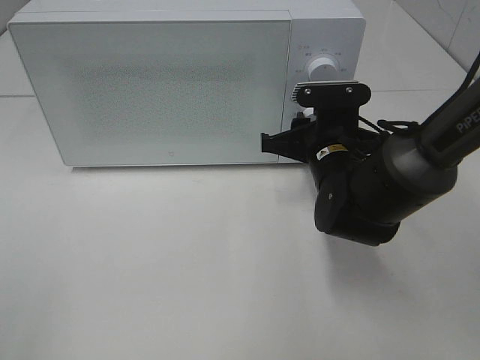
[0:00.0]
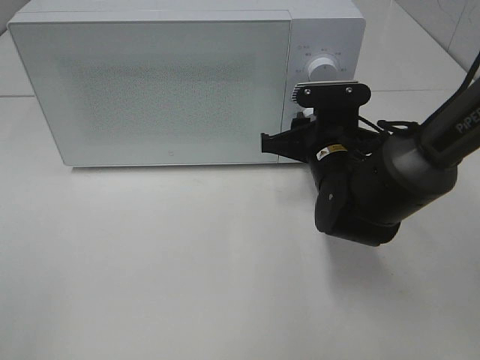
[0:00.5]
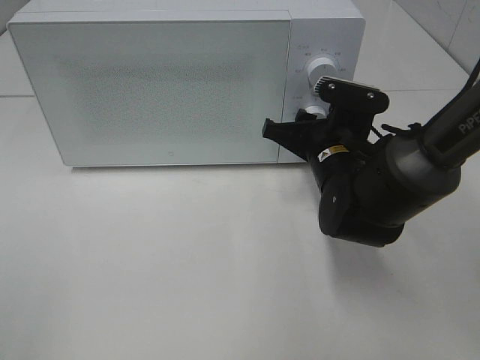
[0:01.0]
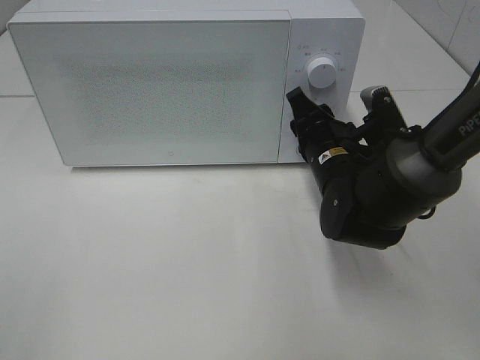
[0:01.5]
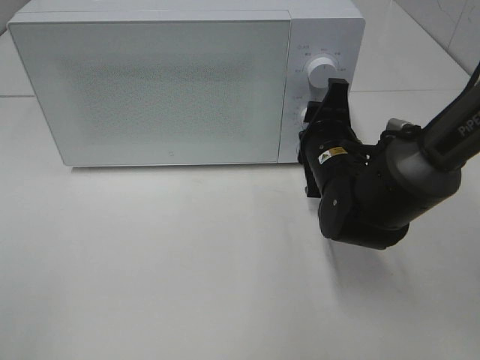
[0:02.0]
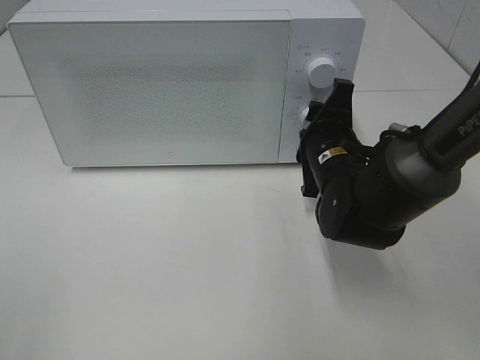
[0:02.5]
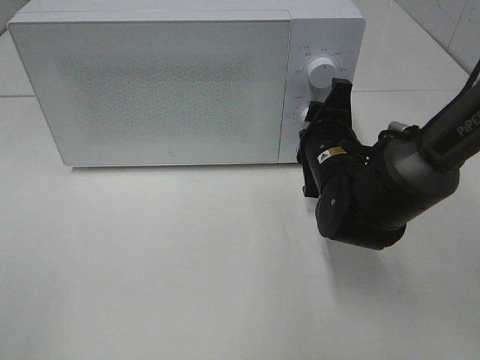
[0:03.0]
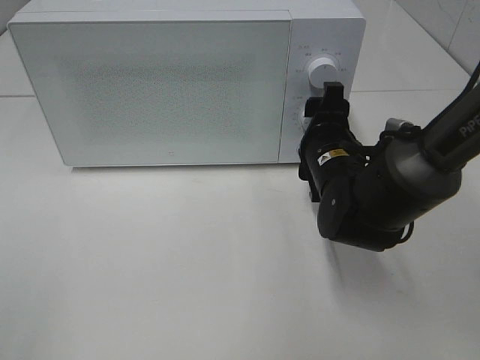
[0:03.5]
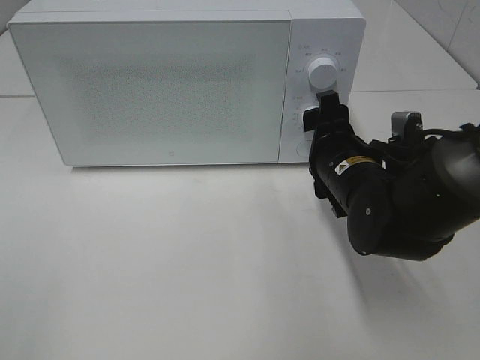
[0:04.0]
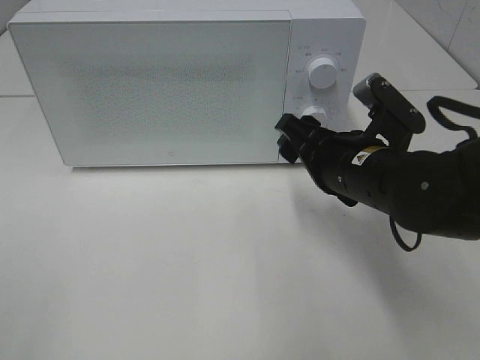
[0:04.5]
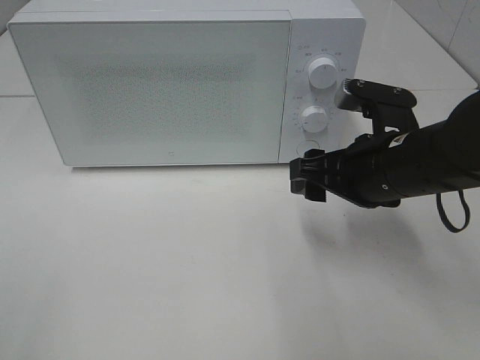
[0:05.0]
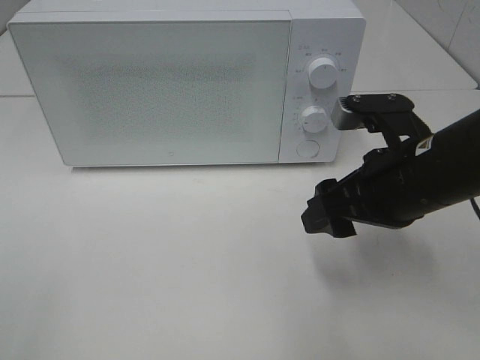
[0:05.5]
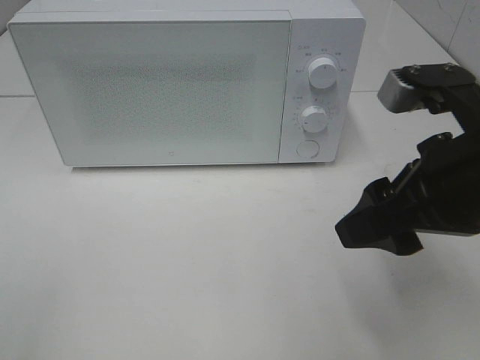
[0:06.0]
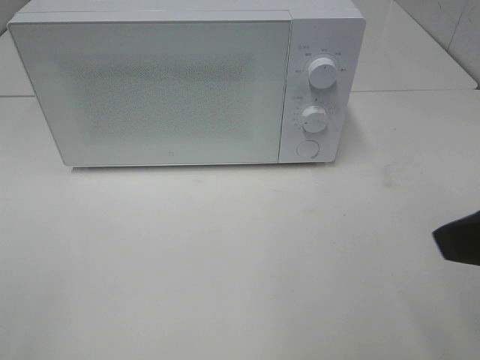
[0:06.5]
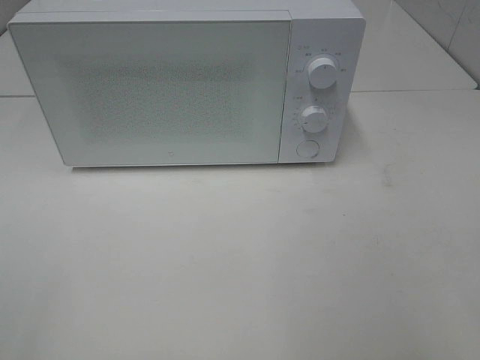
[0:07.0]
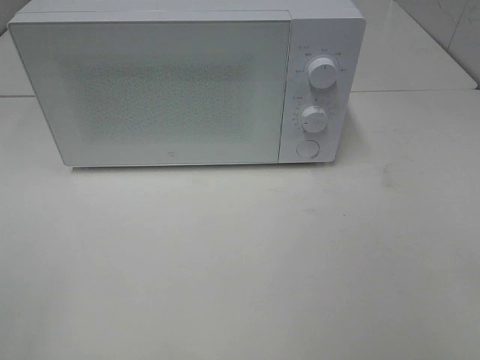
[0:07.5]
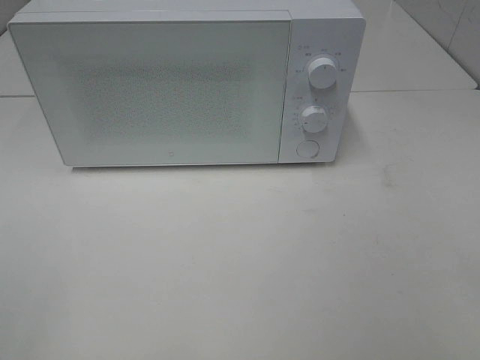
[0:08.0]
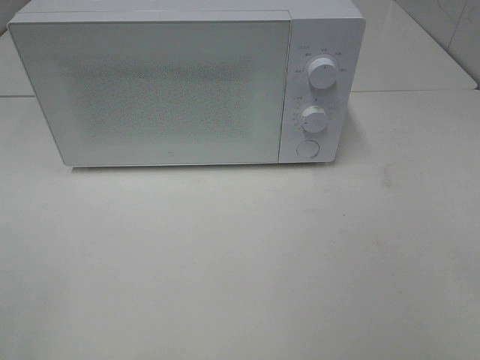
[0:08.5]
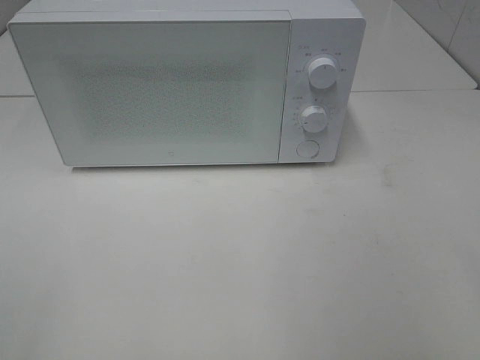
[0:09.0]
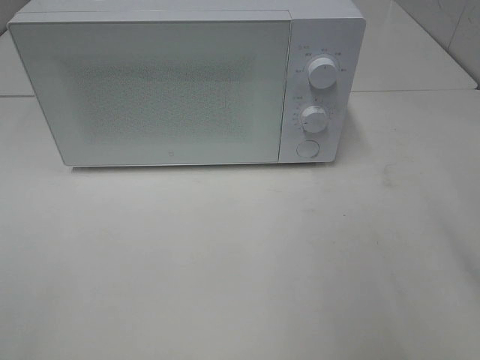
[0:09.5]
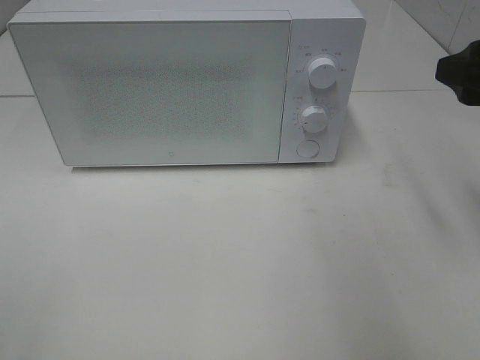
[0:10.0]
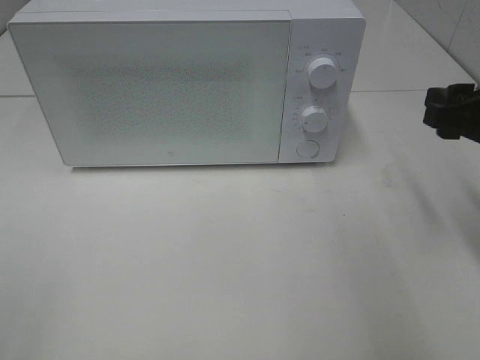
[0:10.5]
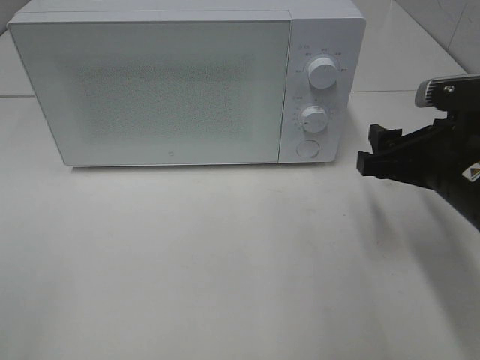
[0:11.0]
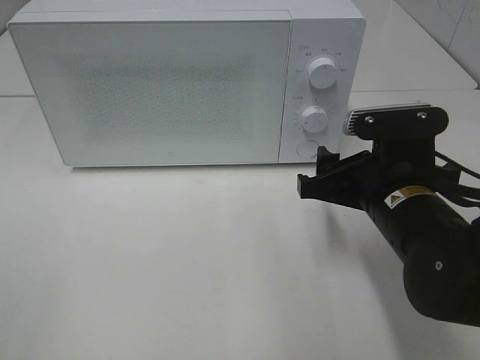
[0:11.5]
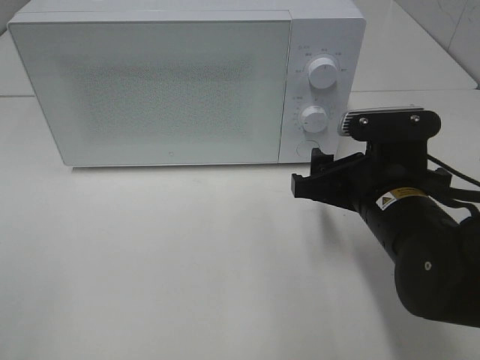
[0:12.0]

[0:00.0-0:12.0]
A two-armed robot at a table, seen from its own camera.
Task of the whole recording: Heat the burger.
Step, 0.0 to 3.0 s: Right hand: twist timer button.
2.0 to 4.0 s: The right gripper opens.
4.0 to 6.0 s: The right gripper shifts some 15 cm upward and backward.
6.0 to 8.0 s: The right gripper heads backward and to the right, covering approximately 20 cm.
8.0 to 10.0 s: The right gripper moves forward, about 20 cm.
10.0 to 12.0 s: The right gripper heads downward and to the left, covering about 20 cm.

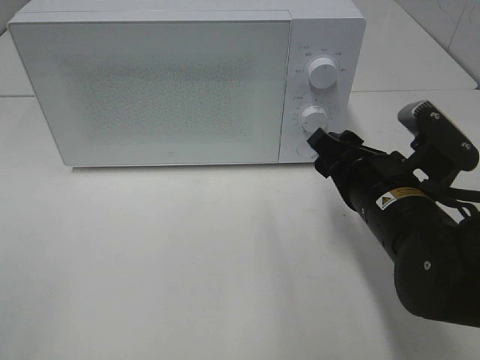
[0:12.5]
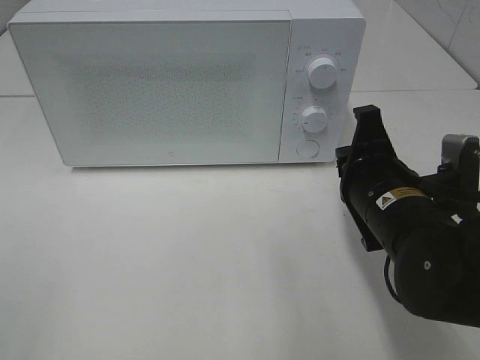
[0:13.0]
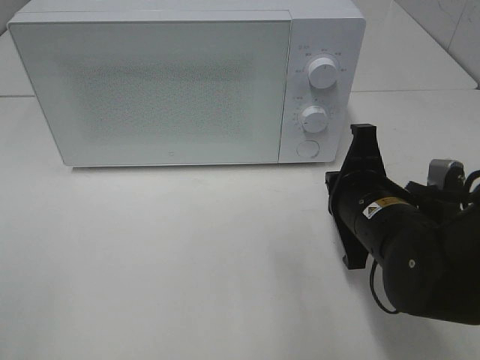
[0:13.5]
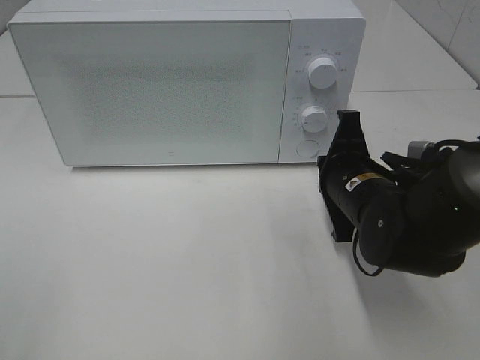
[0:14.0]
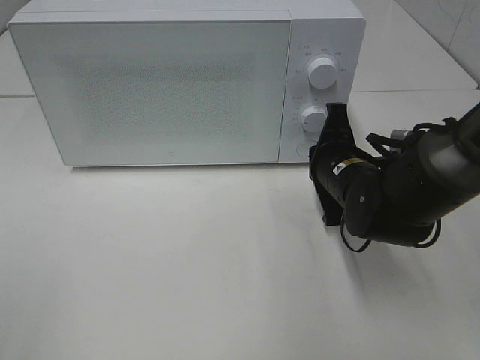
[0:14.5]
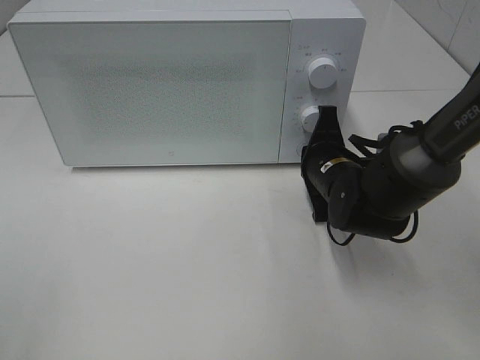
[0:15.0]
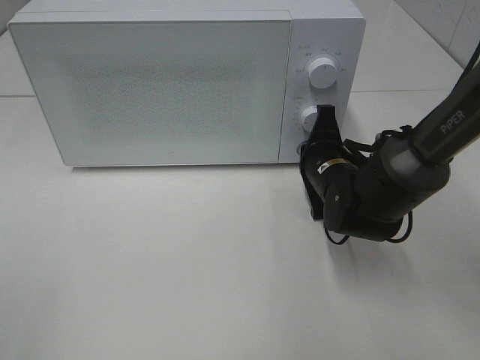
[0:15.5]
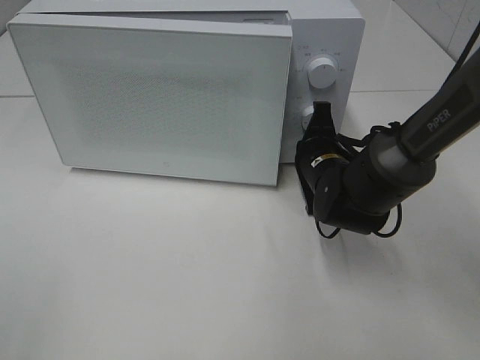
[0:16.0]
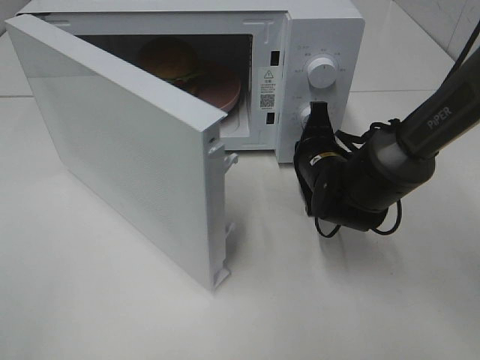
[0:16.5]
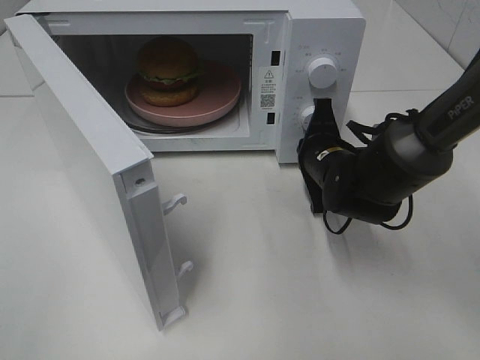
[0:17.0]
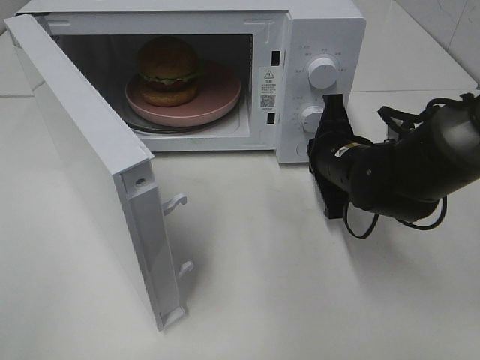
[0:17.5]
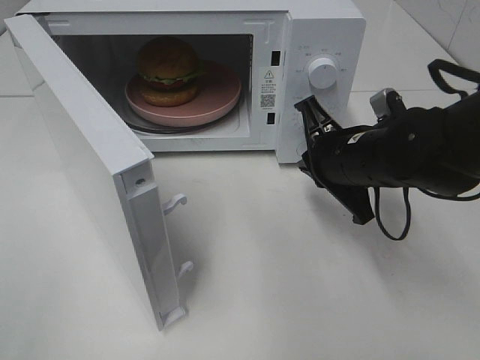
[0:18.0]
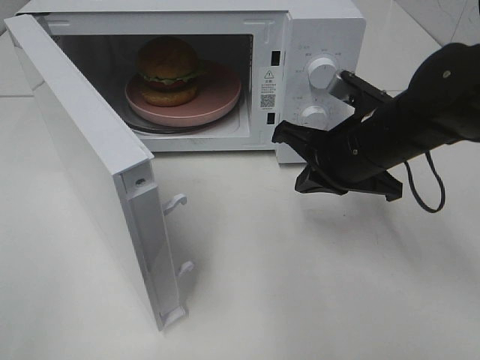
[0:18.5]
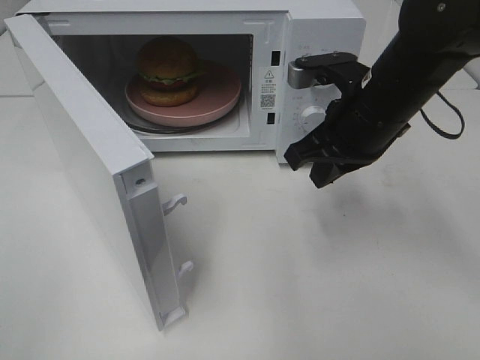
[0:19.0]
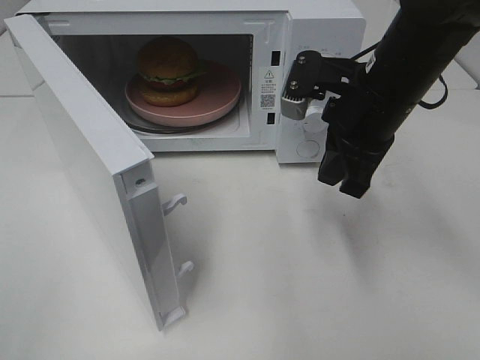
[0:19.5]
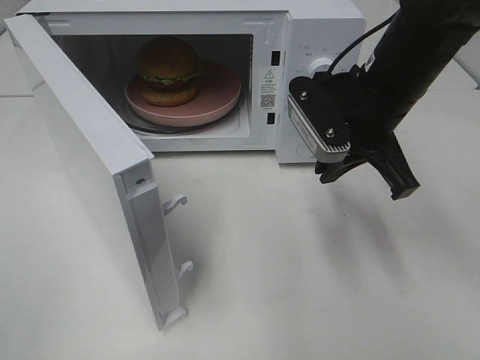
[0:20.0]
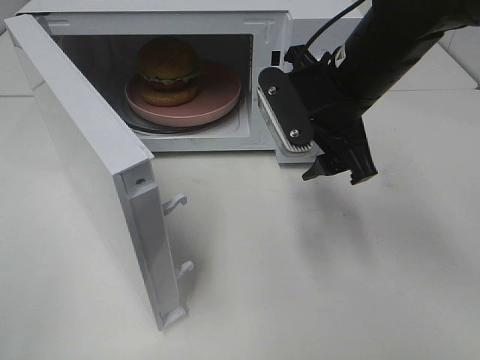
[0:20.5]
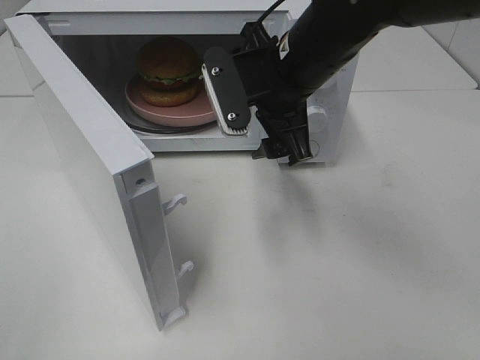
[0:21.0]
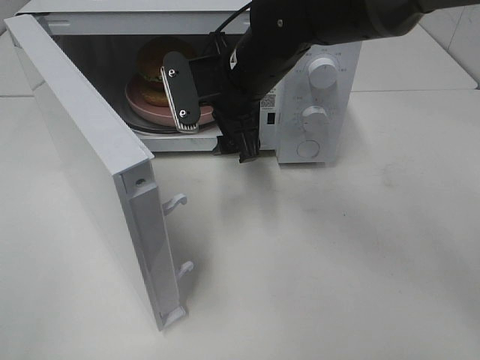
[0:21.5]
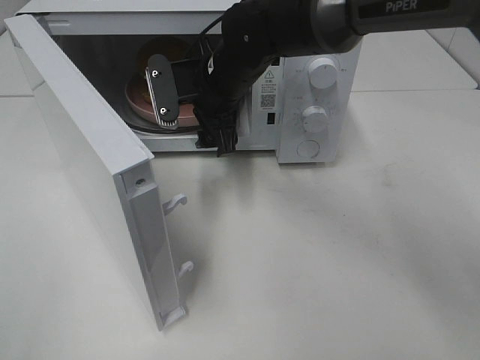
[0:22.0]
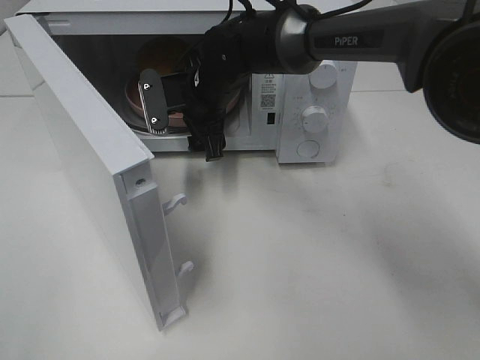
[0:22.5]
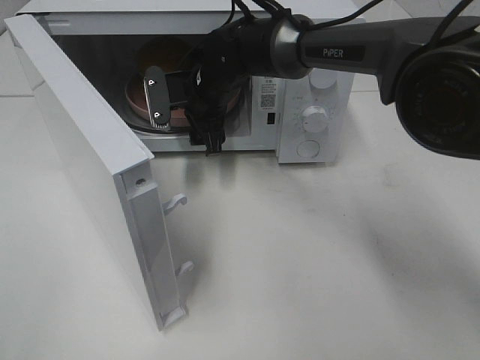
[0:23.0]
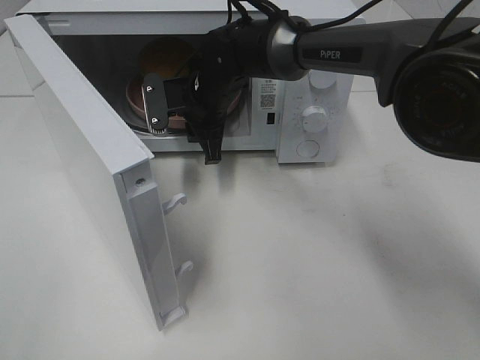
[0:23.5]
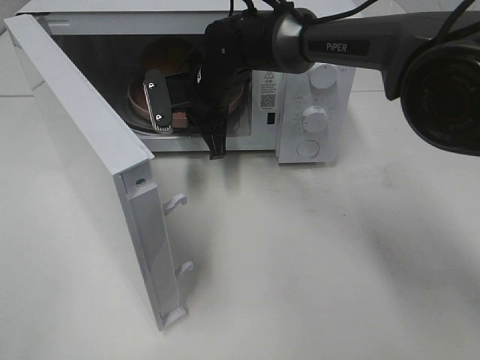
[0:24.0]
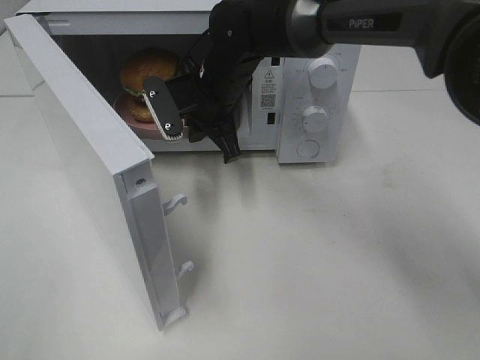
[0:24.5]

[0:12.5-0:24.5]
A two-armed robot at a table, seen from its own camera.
Task of the whole recording: Heat the burger.
Step, 12.5 to 17.5 s: Right hand: press the switch.
Step, 18.0 to 23.5 s: Right hand: grab the plate with the hamburger.
12.5 to 14.5 s: The right gripper moves forward, approximately 10 cm, and closes.
16.5 to 18.5 s: The right gripper moves upward and backward, approximately 10 cm.
18.5 to 20.5 s: The right gripper shifts roughly 5 cm upward, and opens its fingers.
20.5 to 22.5 s: The right gripper is displaced to the left, forward and downward by some 20 cm.
22.5 to 24.5 s: The right gripper closes.

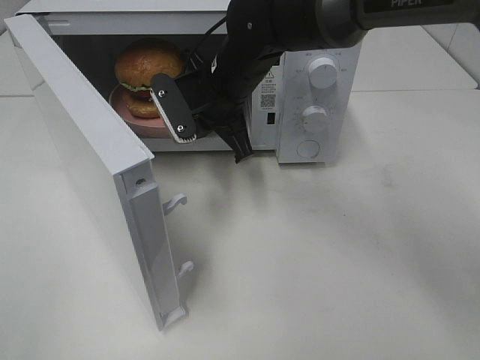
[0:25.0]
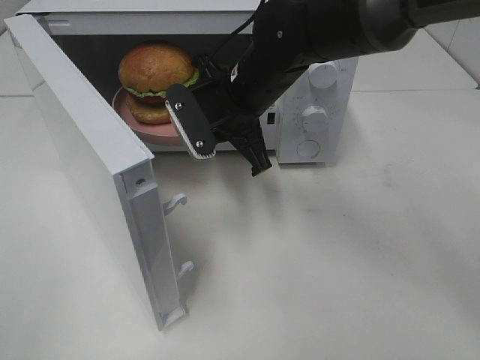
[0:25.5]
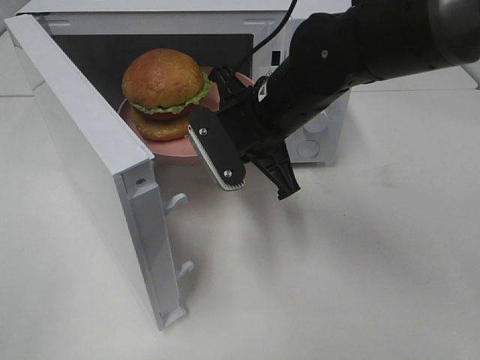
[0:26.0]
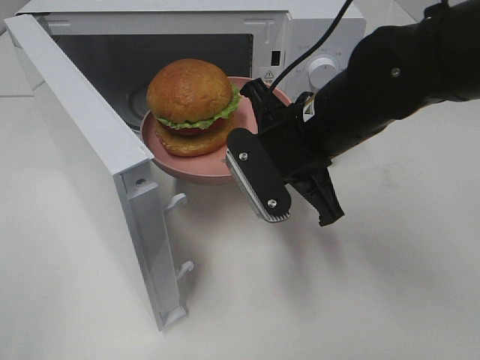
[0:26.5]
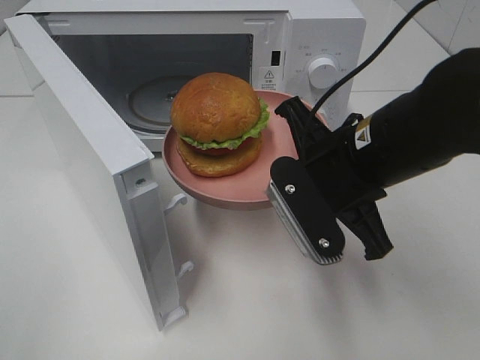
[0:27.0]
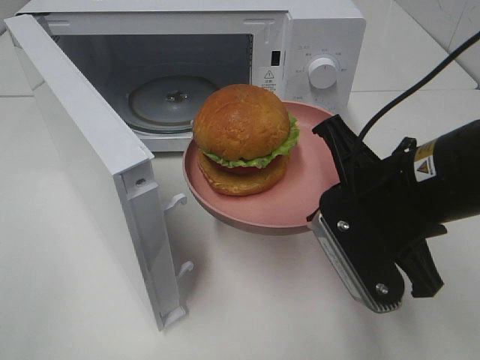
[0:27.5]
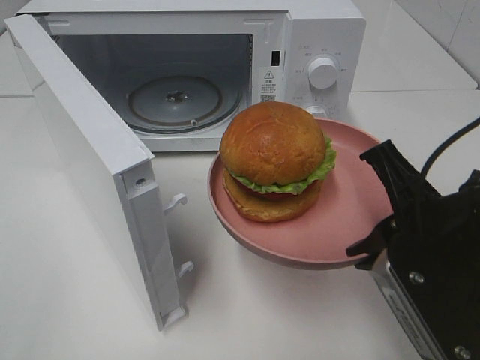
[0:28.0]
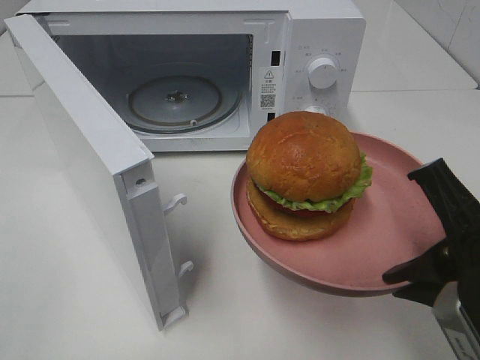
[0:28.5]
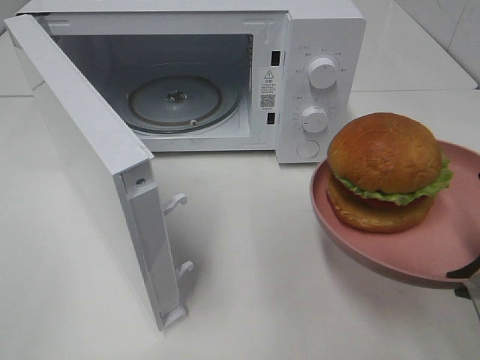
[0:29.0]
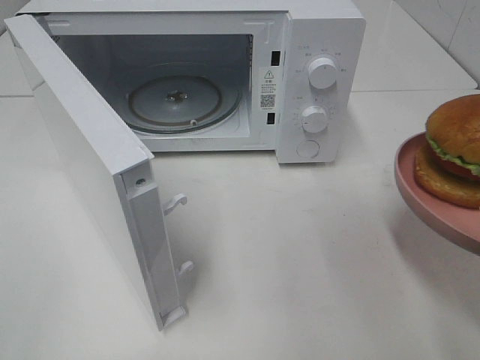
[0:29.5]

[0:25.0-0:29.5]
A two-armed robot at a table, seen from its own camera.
Task of the whole recording: Heat the burger.
25.0 to 27.0 s: The right gripper moves backward and to the right, some 20 cm.
27.0 to 29.5 s: The right gripper travels to the right and backward by roughly 15 cm.
